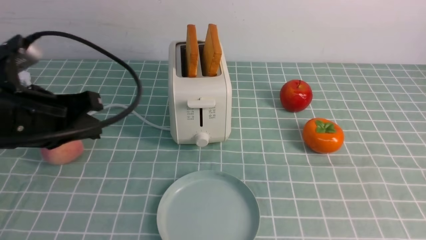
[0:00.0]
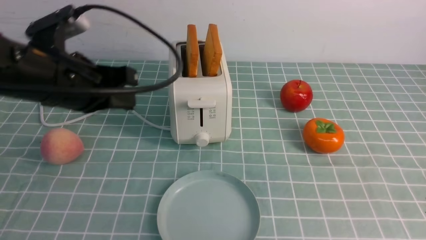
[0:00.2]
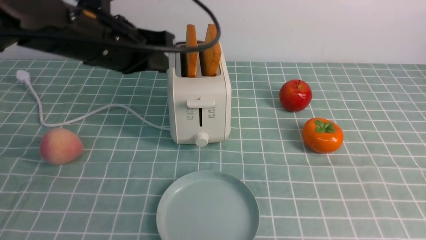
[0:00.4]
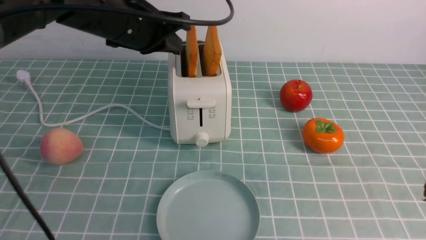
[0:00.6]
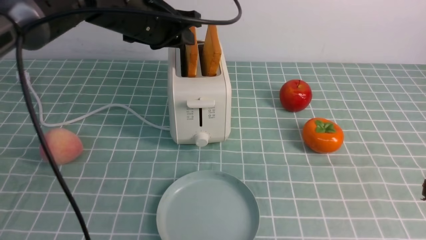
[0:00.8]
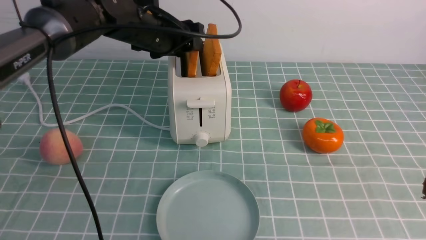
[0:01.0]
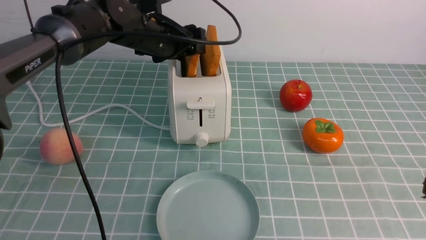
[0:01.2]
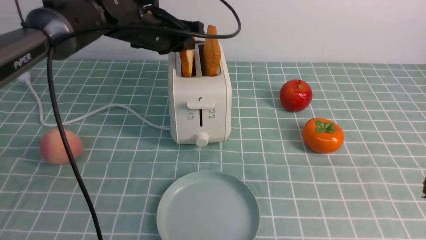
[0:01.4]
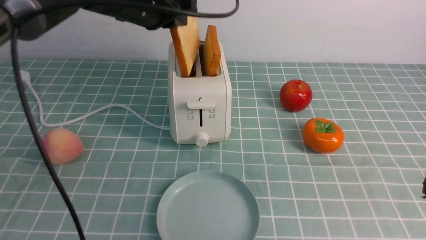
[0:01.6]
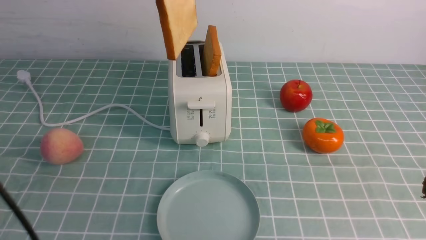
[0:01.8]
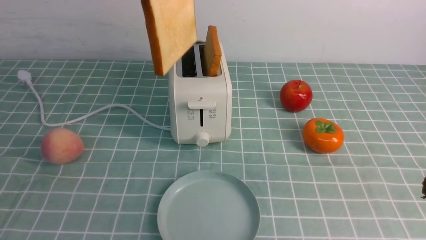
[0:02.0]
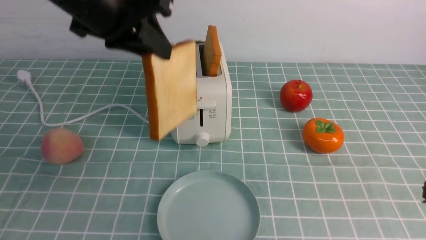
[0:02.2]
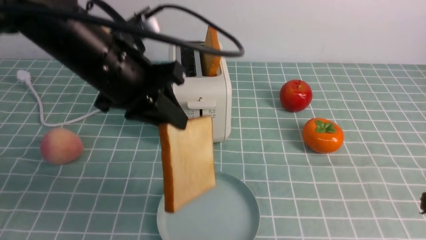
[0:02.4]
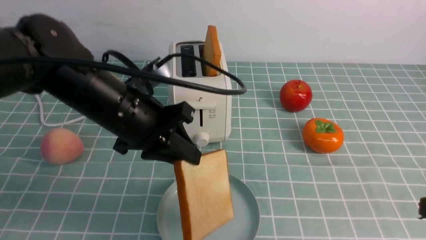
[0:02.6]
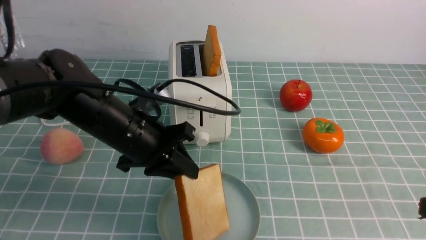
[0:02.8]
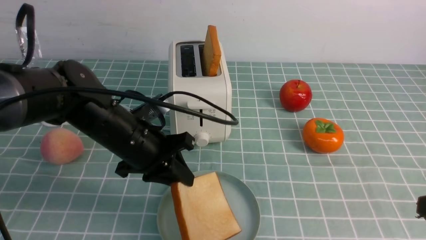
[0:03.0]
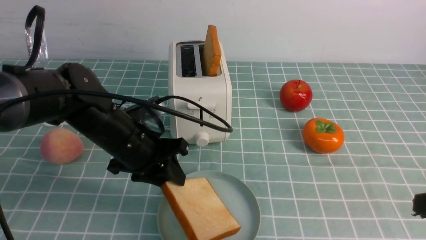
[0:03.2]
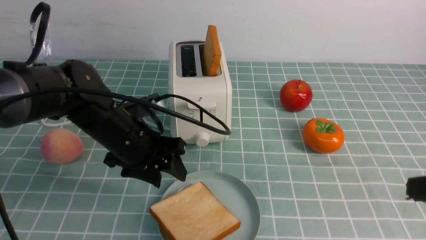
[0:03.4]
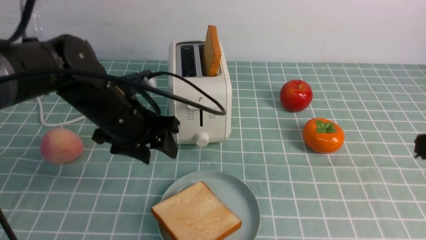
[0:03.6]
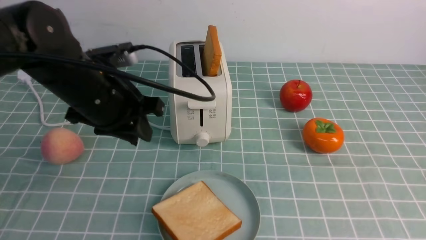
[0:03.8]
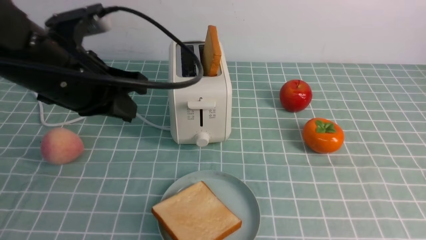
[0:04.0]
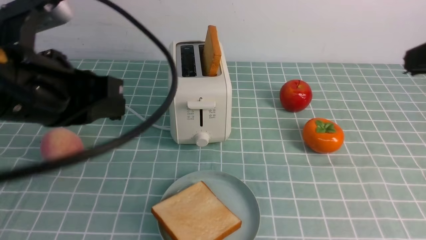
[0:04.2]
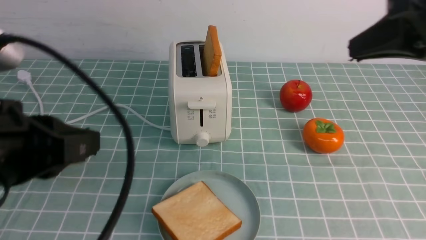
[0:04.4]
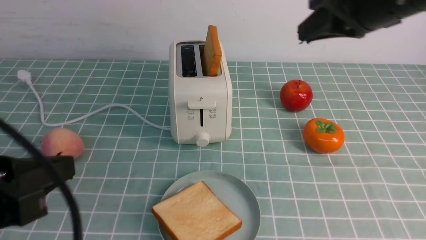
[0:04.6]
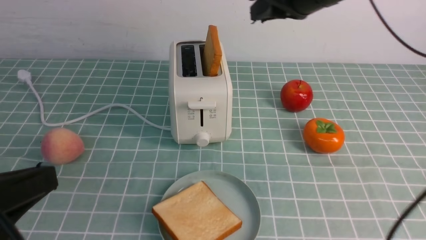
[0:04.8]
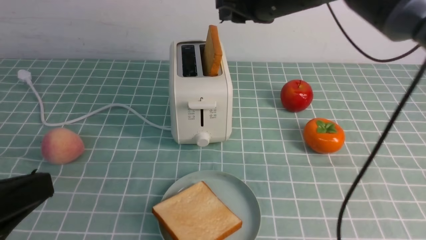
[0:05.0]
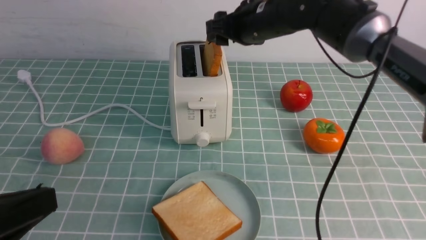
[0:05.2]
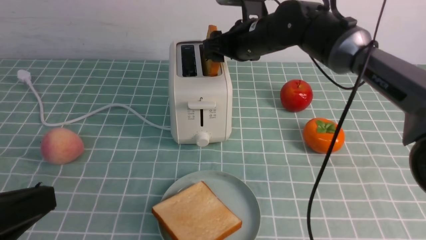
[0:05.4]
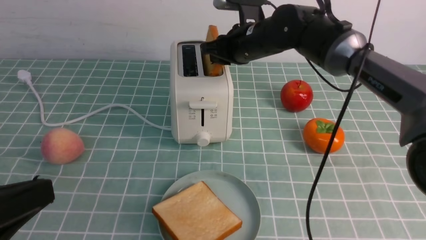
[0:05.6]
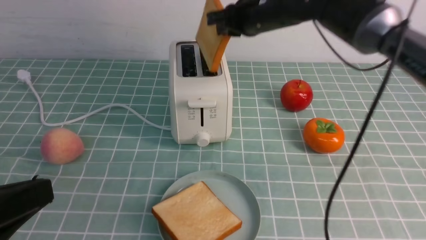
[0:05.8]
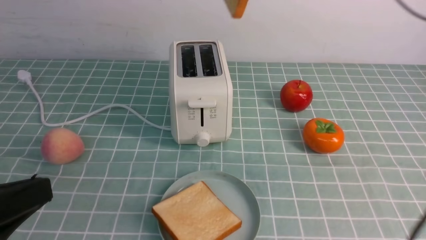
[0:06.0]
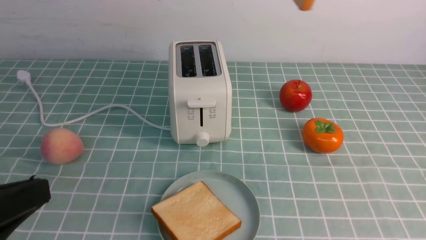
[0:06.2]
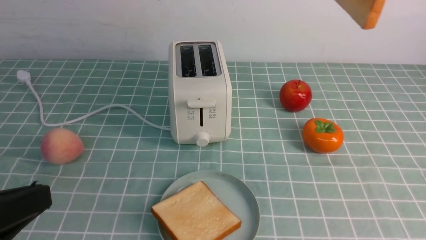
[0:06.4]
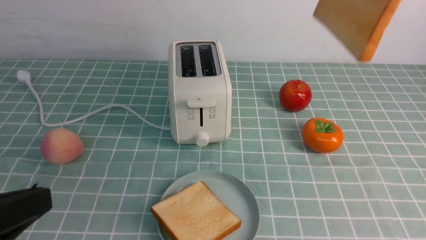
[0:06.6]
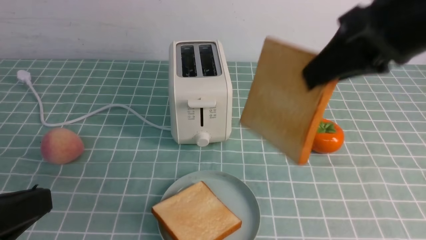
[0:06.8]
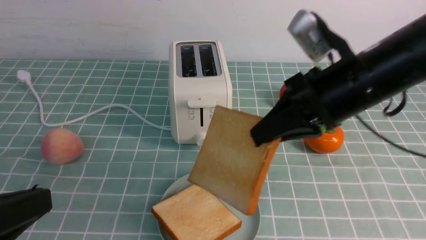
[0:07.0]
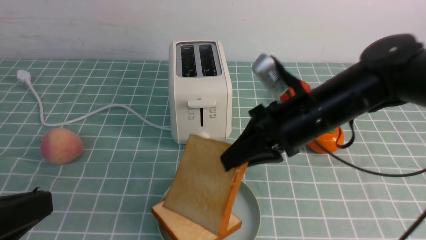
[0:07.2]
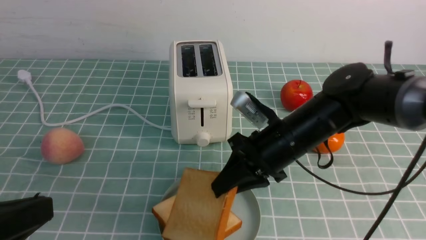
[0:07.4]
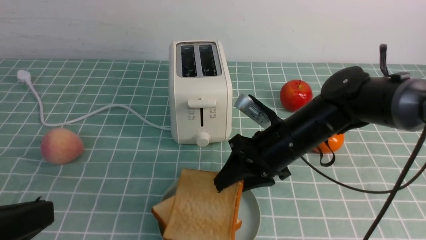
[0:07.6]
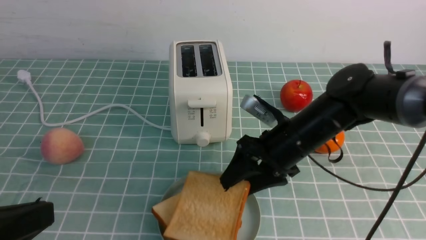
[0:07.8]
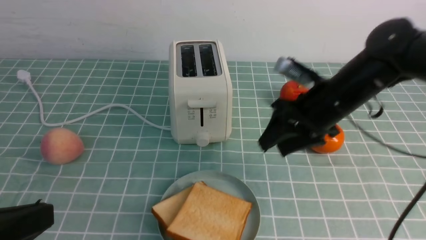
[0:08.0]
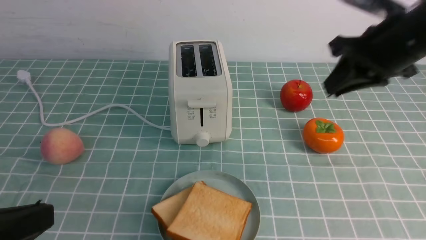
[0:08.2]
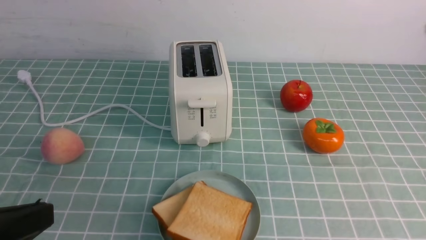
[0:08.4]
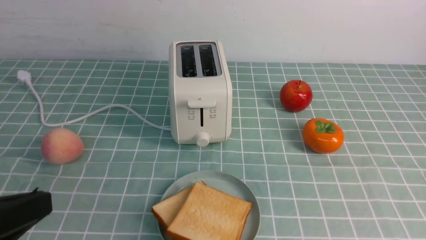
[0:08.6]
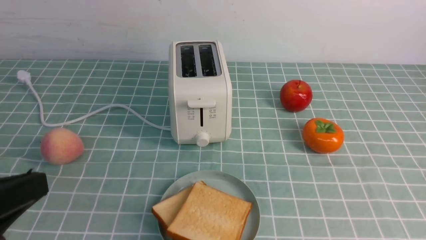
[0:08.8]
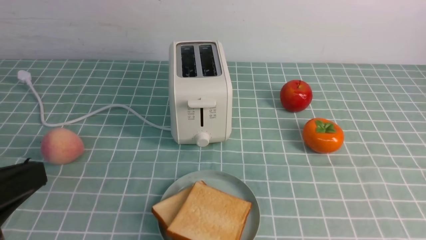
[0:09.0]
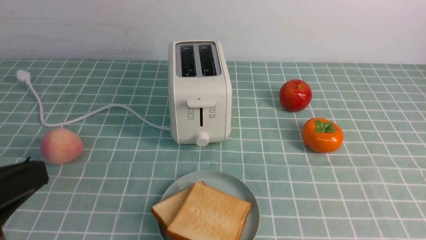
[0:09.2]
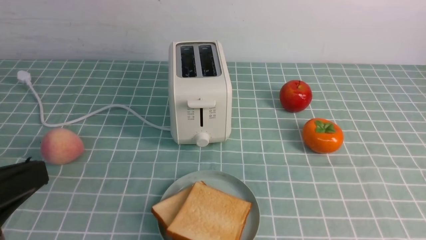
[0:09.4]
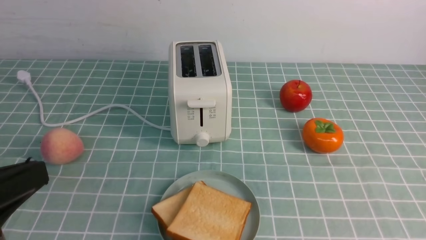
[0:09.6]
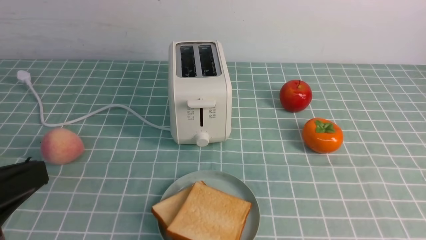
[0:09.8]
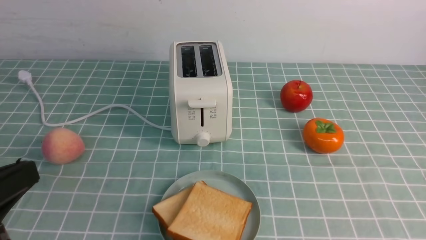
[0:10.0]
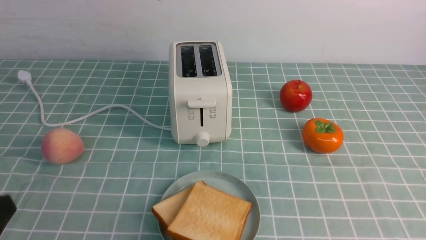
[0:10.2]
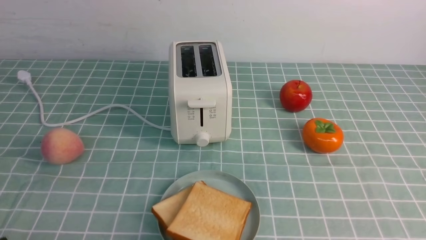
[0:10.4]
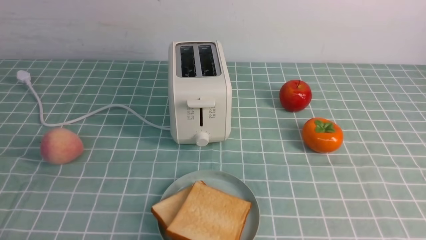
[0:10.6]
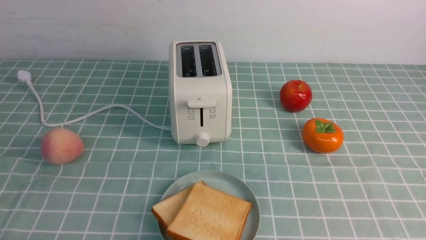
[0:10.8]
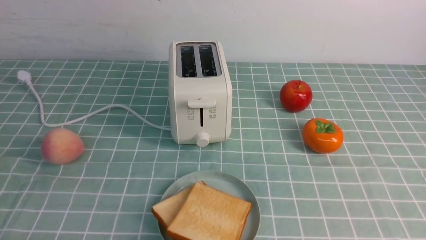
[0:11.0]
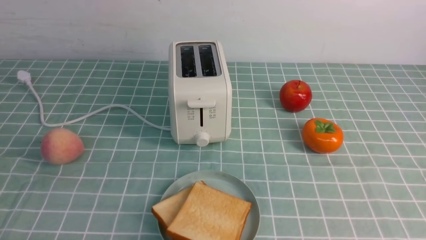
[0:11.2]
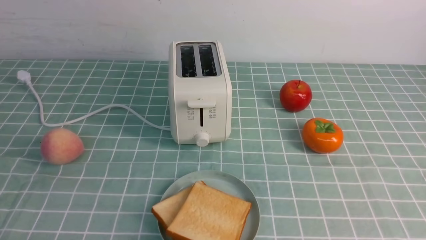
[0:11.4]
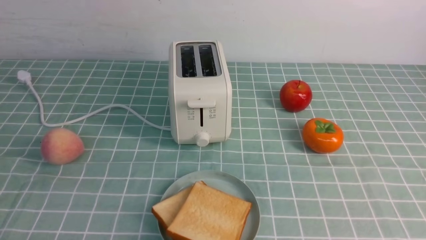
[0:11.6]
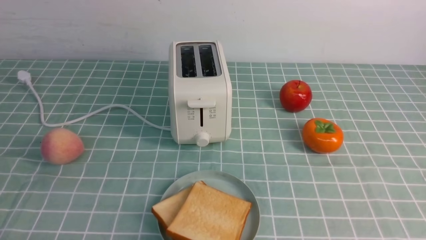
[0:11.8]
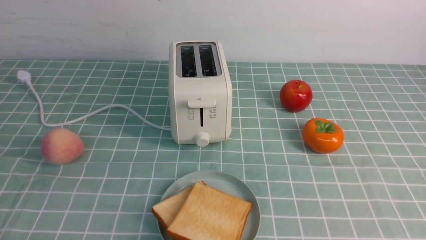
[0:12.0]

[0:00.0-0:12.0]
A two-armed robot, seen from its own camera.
Task of the whole recording: take toasted bread from bread machine on blue coffee table place on plate.
Step, 0:01.8 to 0:03.4: use the left arm to put a slice of bread into the empty plate.
Step, 0:03.6 to 0:05.8: use the right arm to take out a slice of bread.
Step, 0:06.0 to 0:08.0: use the right arm to put a slice of bread into the plate.
0:00.0 to 0:01.6: The left gripper heads forward and to the right, covering roughly 20 cm, and opens and closes again.
0:01.6 to 0:03.0: The left gripper shifts roughly 20 cm downward and backward.
0:03.0 to 0:04.4: The right gripper shifts roughly 20 cm upward, forward and to the left. Meanwhile the left gripper shifts approximately 20 cm backward, upward and to the left, and closes up.
0:04.4 to 0:06.0: The right gripper travels forward and to the left by about 15 cm, and opens, then closes again. Meanwhile the left gripper is displaced backward by some 5 cm.
0:06.0 to 0:07.6: The right gripper is displaced downward by some 25 cm, and opens its fingers.
0:07.6 to 0:09.0: The right gripper moves backward, to the right and upward, approximately 40 cm, and closes.
0:09.0 to 0:10.4: The left gripper heads downward, covering roughly 15 cm.

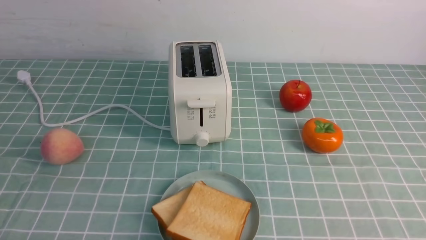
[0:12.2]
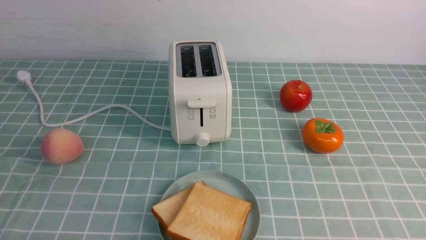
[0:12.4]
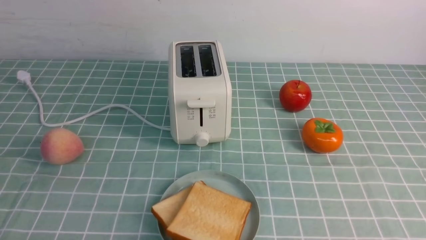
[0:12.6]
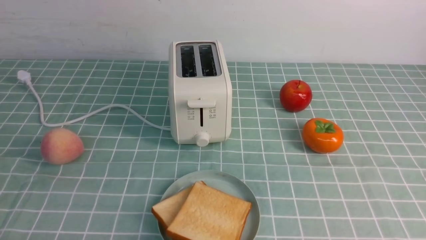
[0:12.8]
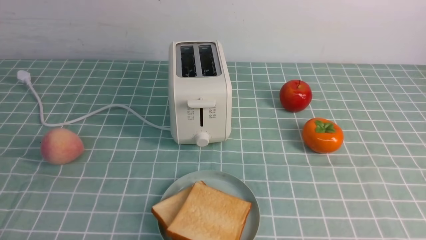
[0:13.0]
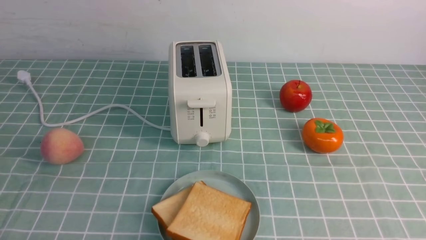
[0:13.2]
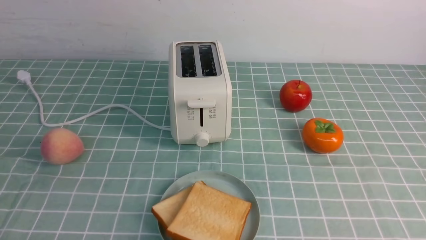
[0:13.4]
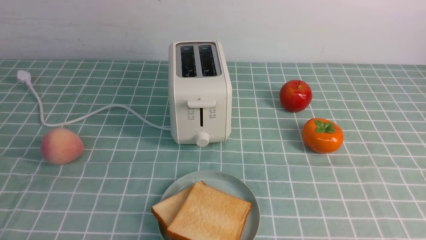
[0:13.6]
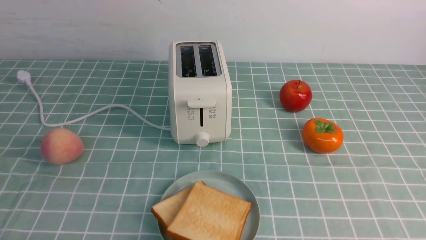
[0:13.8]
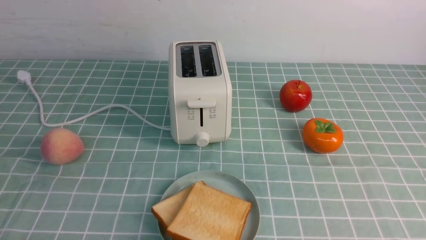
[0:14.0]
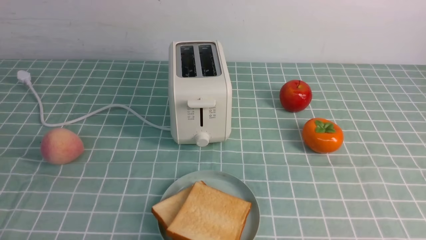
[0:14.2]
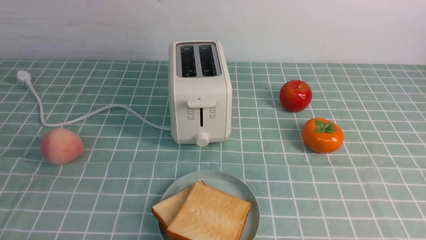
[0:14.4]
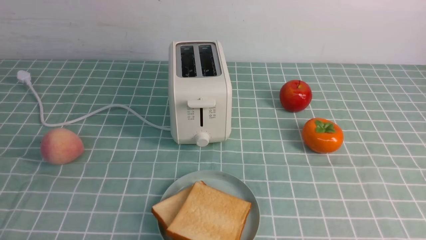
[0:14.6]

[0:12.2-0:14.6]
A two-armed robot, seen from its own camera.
Task of the whole recording: take toasted bread from bread machine on blue coffee table place on plate.
0:13.4 to 0:14.6: The two grippers keep their place.
